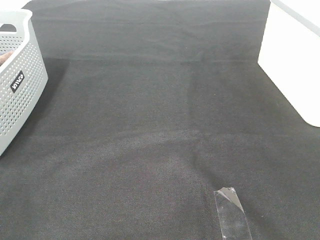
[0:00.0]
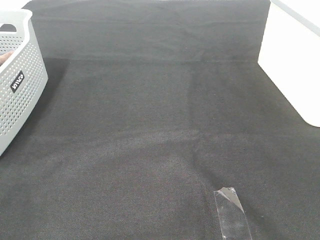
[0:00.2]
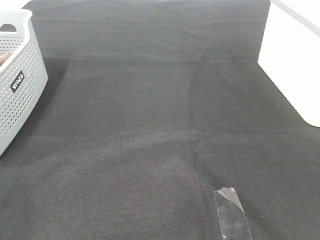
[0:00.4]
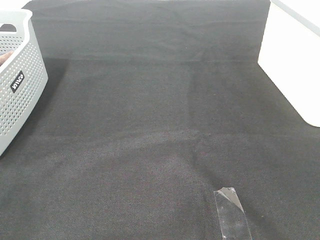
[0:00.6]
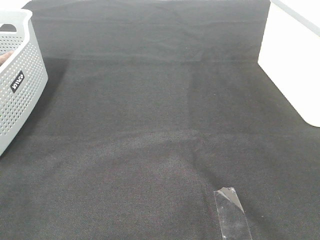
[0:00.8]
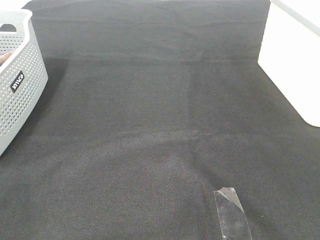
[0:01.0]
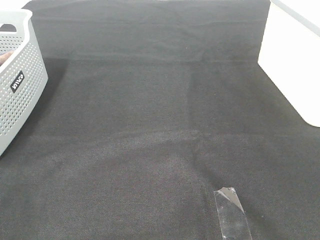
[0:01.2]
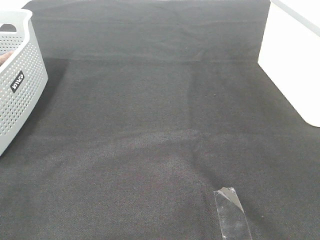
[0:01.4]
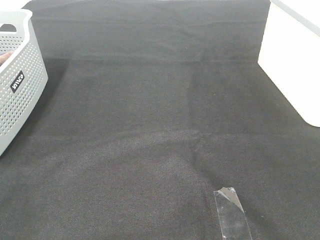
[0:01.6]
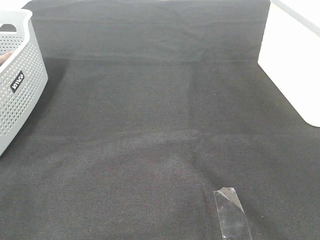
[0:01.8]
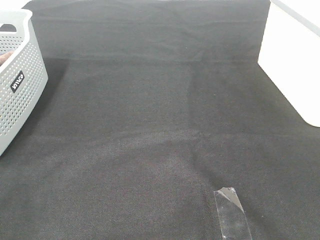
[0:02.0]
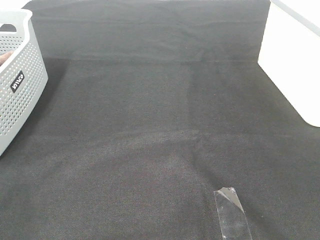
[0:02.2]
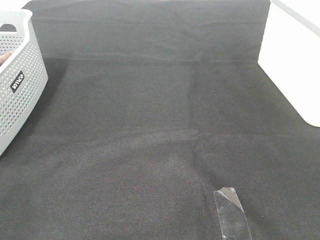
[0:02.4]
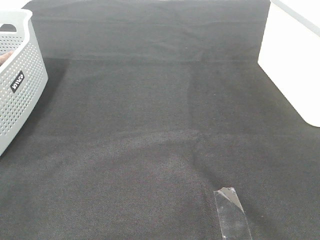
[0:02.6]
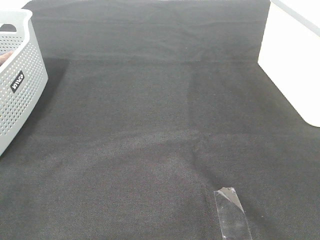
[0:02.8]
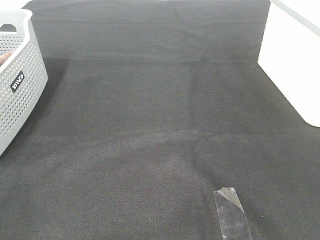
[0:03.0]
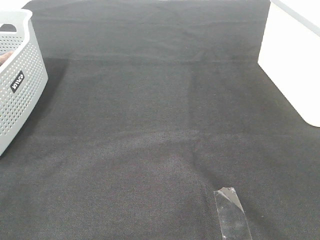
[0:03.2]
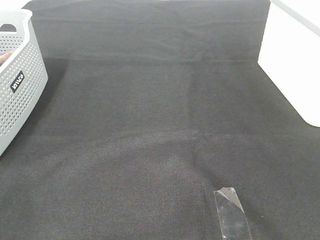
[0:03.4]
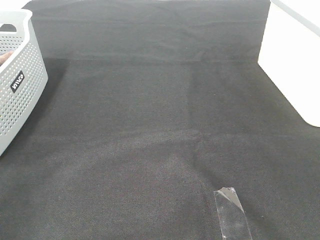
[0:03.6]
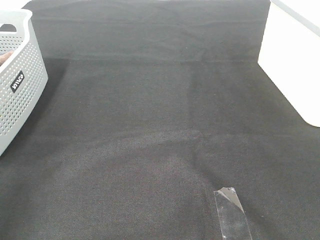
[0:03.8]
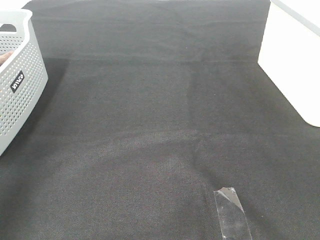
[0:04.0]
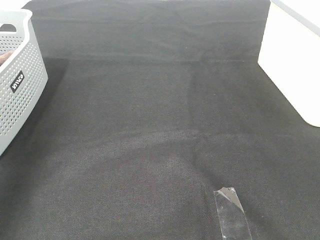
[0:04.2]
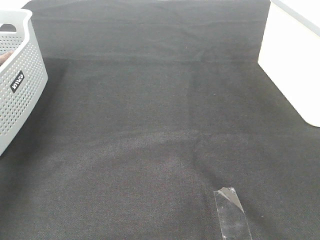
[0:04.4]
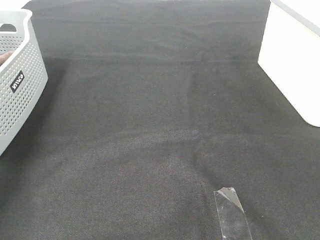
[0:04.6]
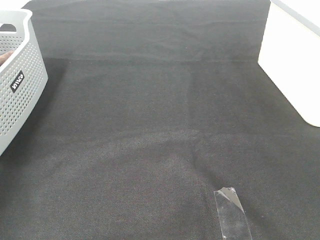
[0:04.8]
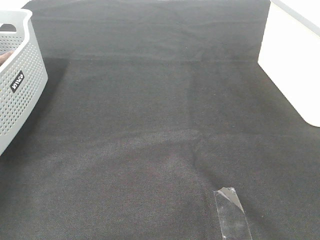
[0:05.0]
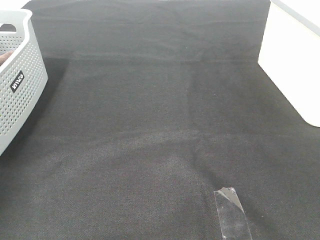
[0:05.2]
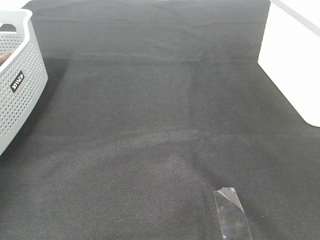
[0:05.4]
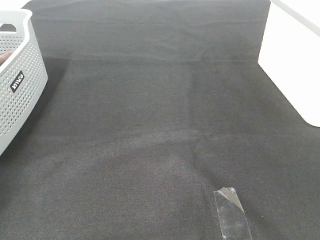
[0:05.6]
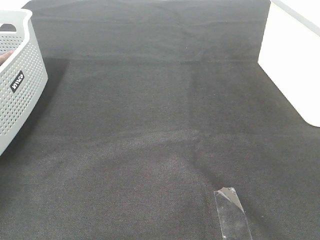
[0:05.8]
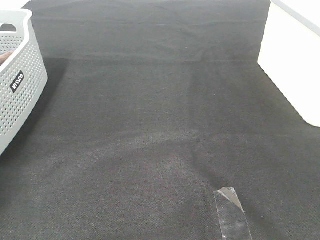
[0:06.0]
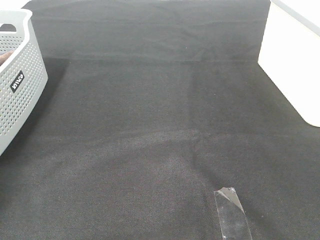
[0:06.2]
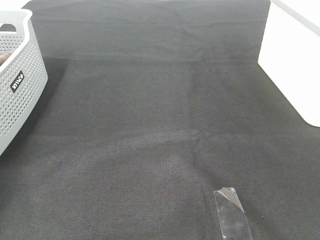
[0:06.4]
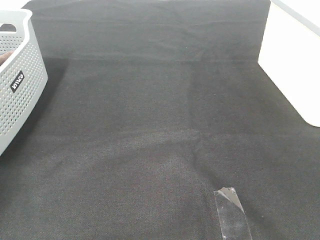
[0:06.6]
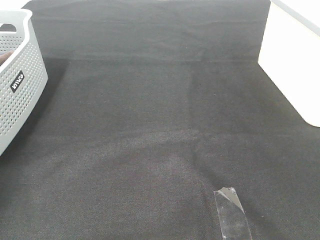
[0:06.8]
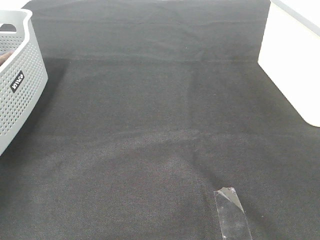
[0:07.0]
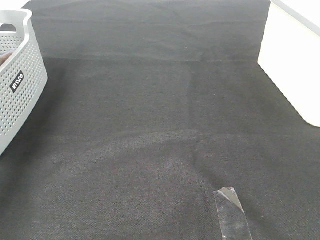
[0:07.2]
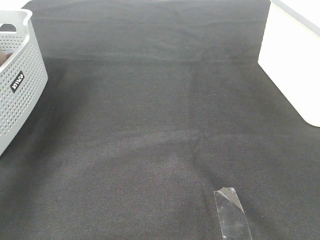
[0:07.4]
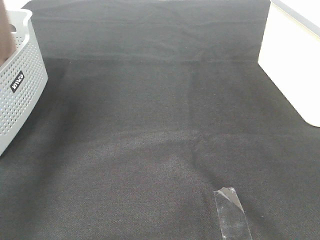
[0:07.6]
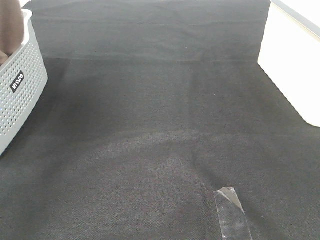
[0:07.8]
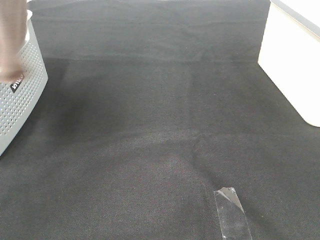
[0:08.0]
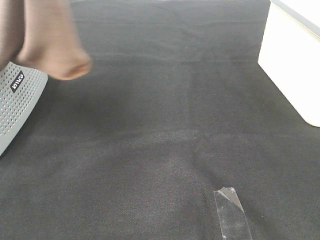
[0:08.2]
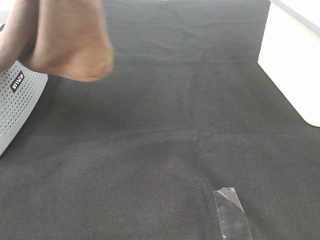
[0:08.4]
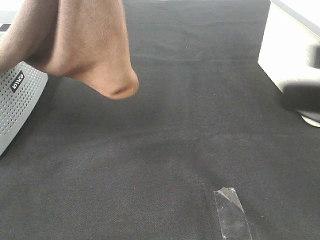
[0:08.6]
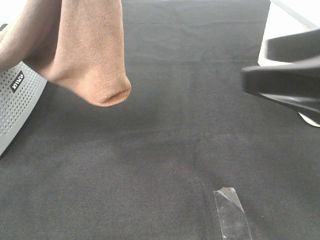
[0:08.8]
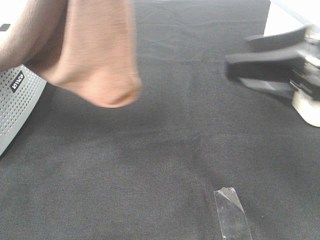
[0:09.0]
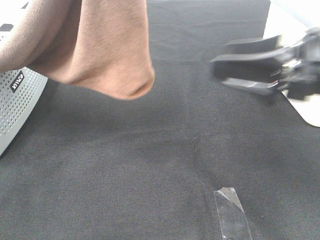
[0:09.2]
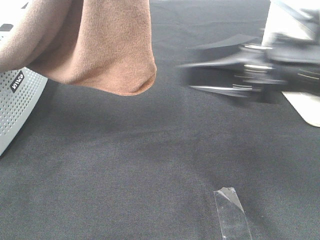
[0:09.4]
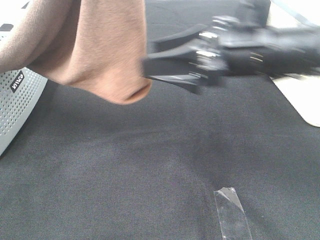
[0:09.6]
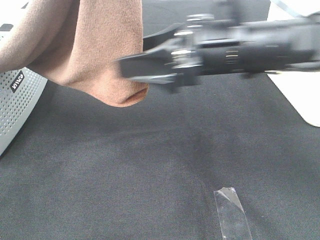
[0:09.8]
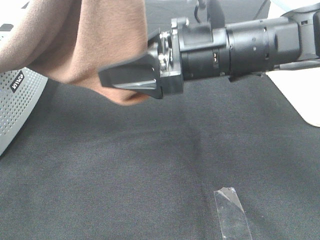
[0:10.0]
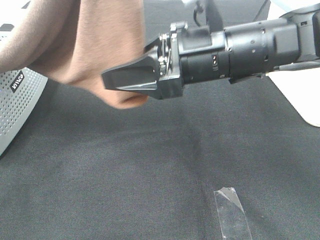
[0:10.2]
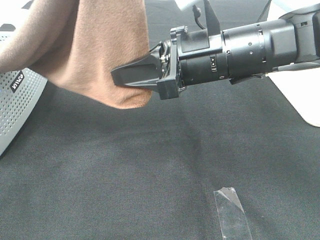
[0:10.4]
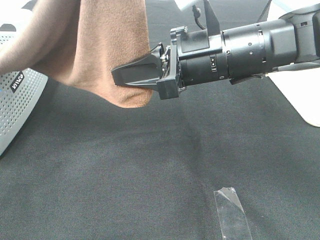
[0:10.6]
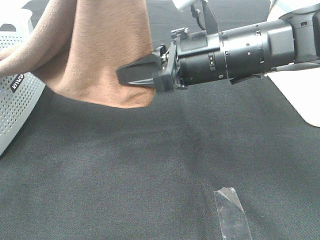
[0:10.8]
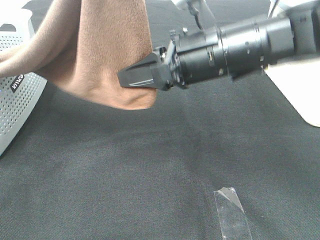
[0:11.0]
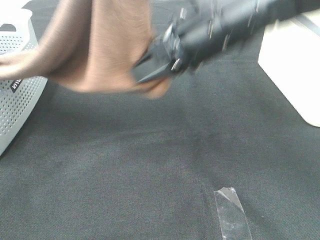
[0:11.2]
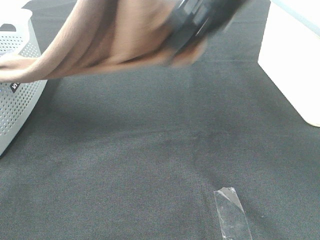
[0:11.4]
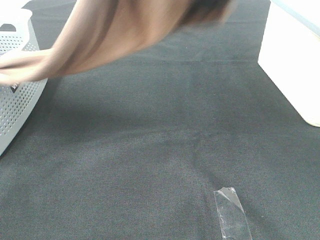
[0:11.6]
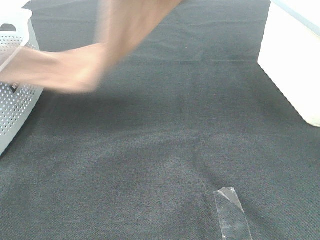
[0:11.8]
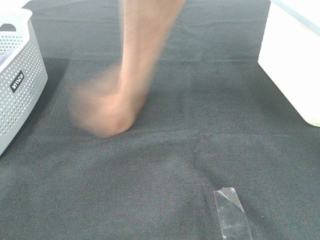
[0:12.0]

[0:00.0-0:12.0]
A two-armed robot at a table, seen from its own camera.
Task of the whole recording: Remove the towel and place it.
Step, 7.8 to 10.2 s: Right hand: grab a corner of the brown towel and straighten it.
0.0 to 3.0 s: The two grippers keep their place.
3.0 to 4.4 s: The left gripper heads forward, covering about 35 cm.
4.4 to 6.0 s: The left gripper shifts roughly 25 cm downward and forward, and closes its fingers.
6.0 to 7.6 s: The left gripper moves upward and to the right, some 30 cm, and closes.
7.6 to 9.0 s: The right gripper travels forward by some 20 cm. The left gripper goes about 20 cm to the right and backward.
9.0 to 10.4 s: The right gripper goes some 15 cm to the left and forward, and closes up.
10.4 to 12.0 s: The left gripper travels forward by about 10 cm. The right gripper shifts about 25 cm upward and forward.

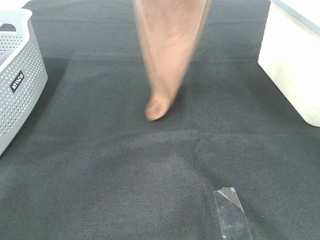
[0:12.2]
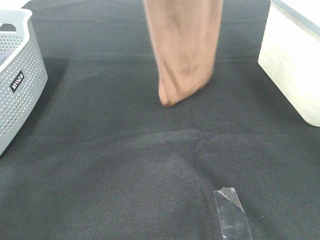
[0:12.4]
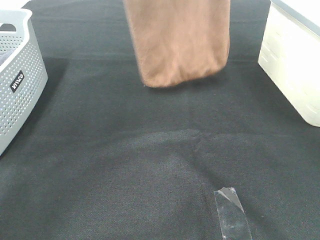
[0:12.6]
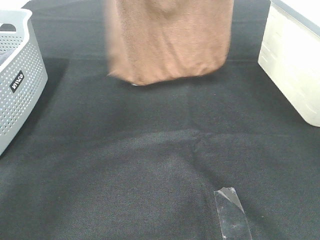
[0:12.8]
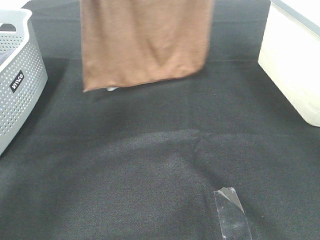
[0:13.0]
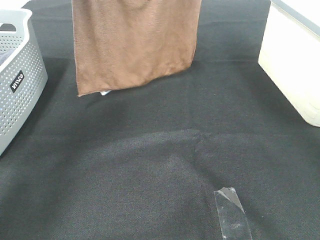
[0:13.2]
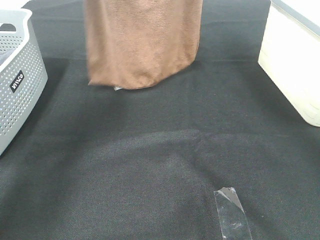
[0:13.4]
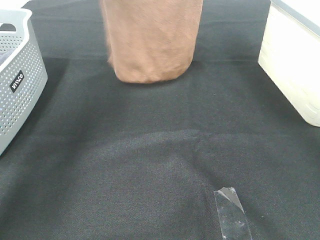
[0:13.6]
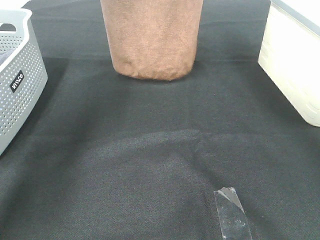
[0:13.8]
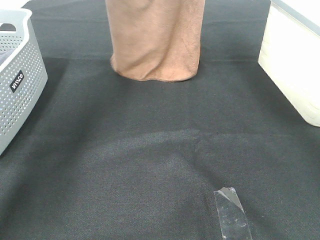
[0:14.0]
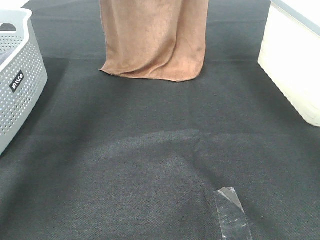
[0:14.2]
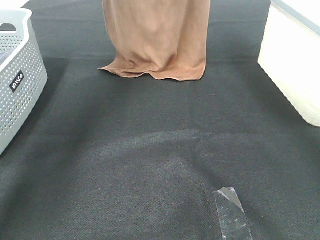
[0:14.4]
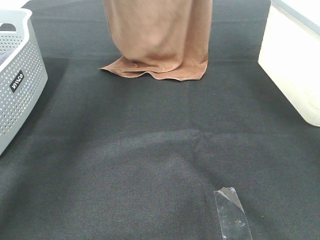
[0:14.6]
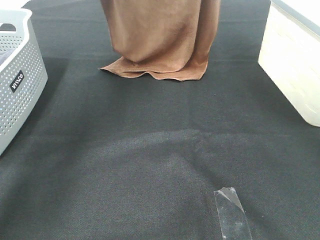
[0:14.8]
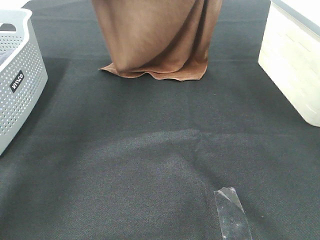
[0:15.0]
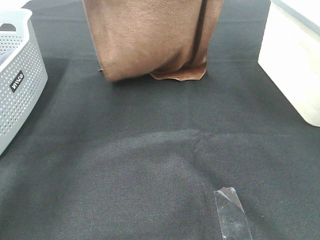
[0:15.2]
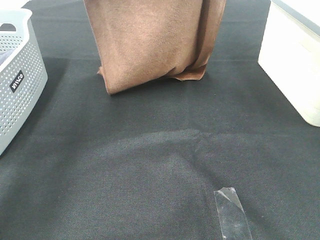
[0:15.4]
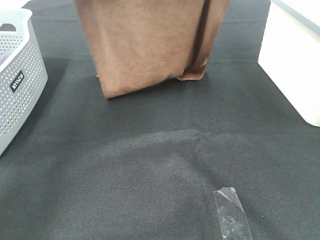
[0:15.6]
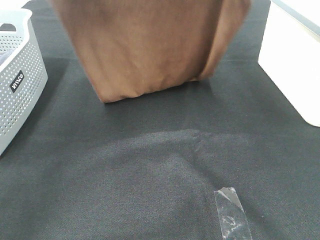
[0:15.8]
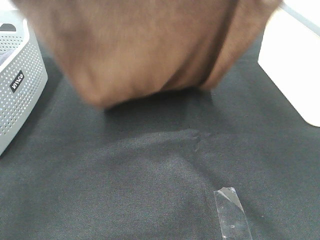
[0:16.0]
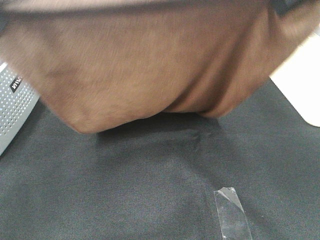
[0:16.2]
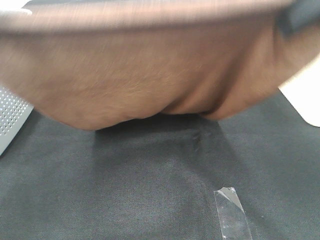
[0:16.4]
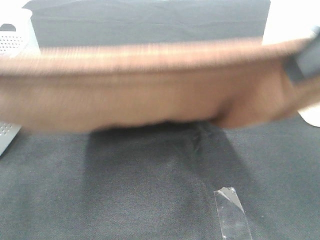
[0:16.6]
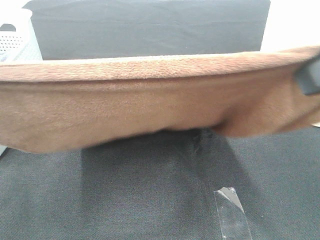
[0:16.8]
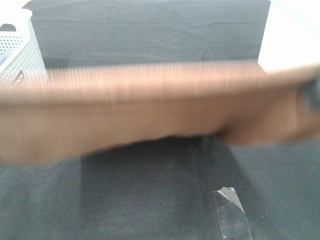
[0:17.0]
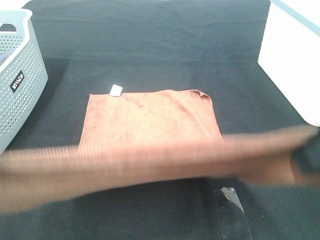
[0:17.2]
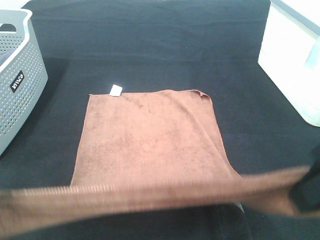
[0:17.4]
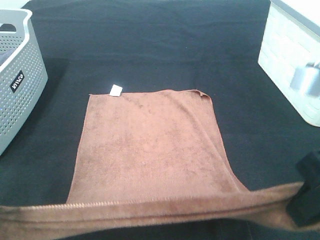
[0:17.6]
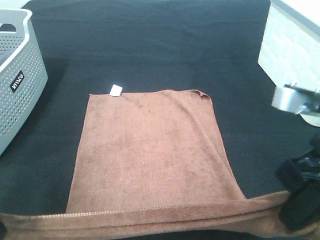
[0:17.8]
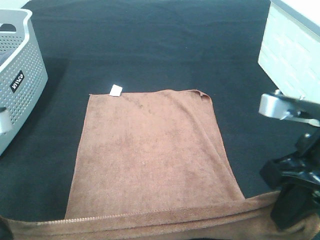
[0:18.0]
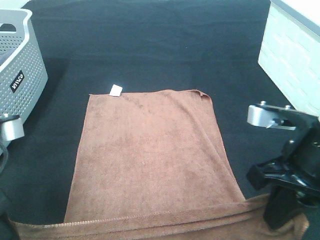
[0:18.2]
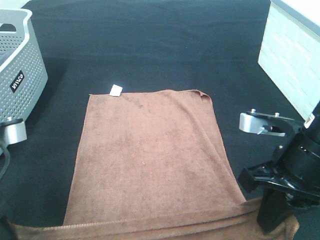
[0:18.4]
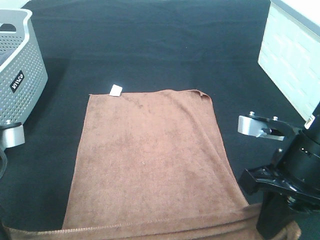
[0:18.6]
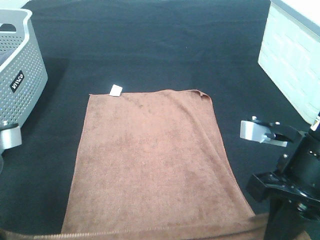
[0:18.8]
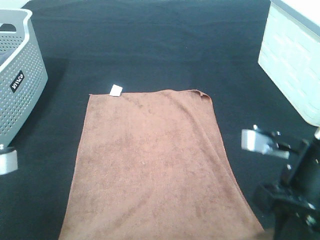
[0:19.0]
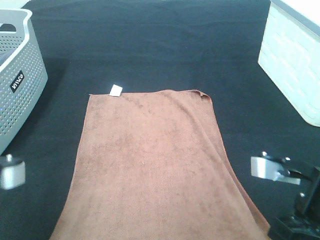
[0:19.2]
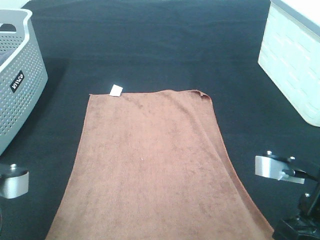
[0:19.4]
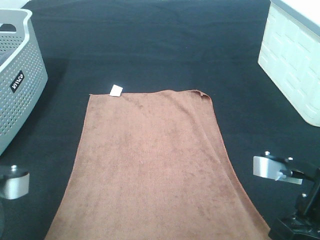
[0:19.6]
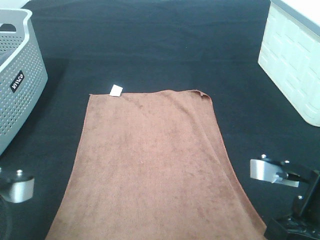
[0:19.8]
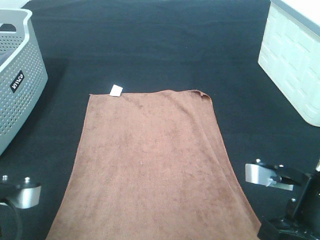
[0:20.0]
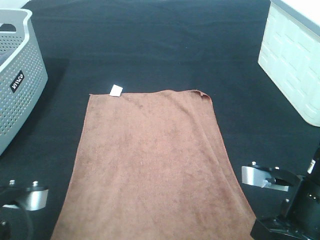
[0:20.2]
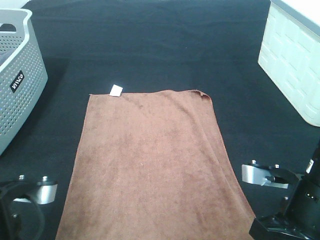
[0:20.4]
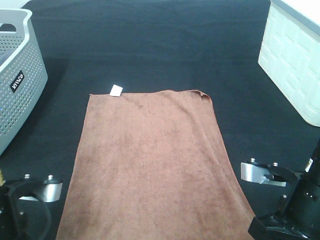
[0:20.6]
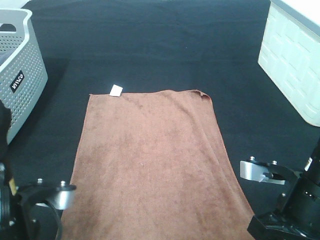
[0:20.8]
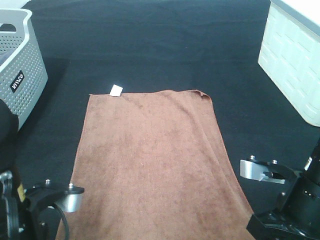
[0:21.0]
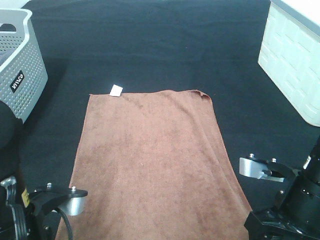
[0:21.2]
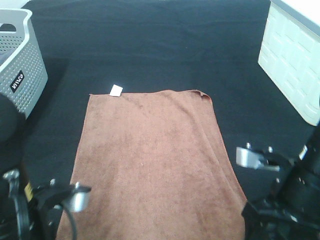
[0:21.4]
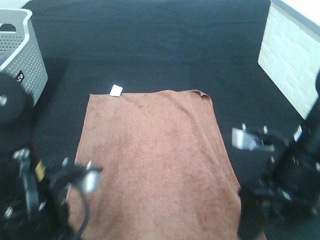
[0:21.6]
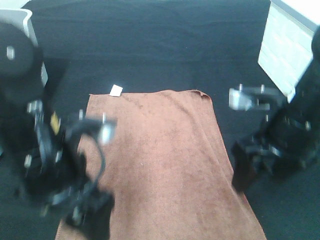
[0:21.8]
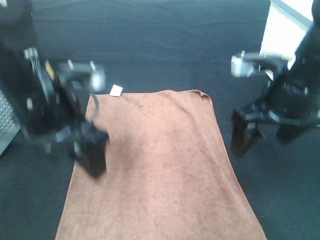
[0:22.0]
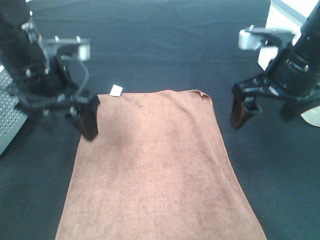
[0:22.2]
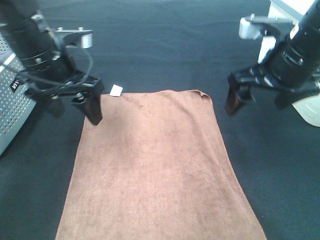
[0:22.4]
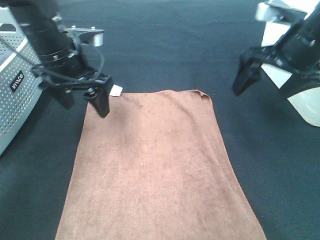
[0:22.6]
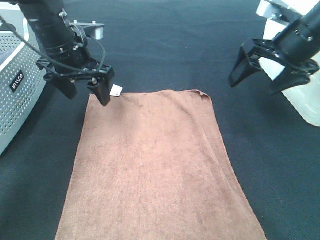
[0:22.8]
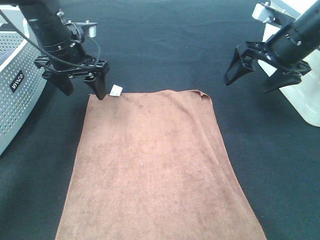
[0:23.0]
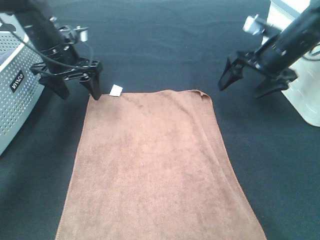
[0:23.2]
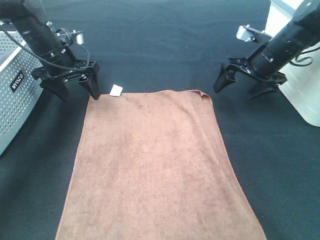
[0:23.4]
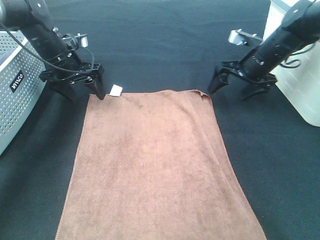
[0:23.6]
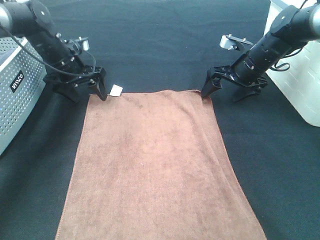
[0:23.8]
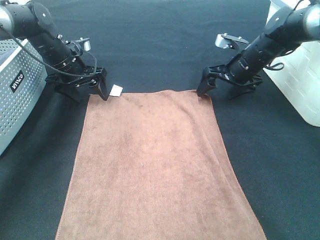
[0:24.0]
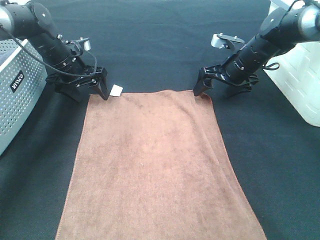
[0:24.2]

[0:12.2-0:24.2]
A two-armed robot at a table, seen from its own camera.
Task of the whole recording: Remove the towel and place it.
Step, 12.2 to 17.0 s: Left hand: spread the brown towel flat on the table.
Step, 12.2 to 17.0 s: Right hand: spread the brown towel flat on the table.
12.2 to 13.8 s: Both grippers travel together forward, some 10 cm.
13.8 to 15.2 s: The two grippers go approximately 10 cm backward.
15.2 to 16.6 s: The two grippers go some 25 cm backward.
16.6 to 18.2 s: Both grippers move downward, some 20 cm.
18.2 to 19.8 s: The left gripper ends up some 5 cm from where it was. The right gripper ends up some 5 cm from where it was.
19.8 to 21.2 s: The left gripper moves to the right, about 5 cm, and opens up, while the right gripper opens up.
21.2 to 22.6 s: The left gripper shifts some 25 cm forward, while the right gripper is displaced forward and upward by some 20 cm.
22.6 to 24.2 s: The left gripper moves forward, downward and to the left, approximately 15 cm, while the right gripper heads forward and downward, covering roughly 20 cm.
